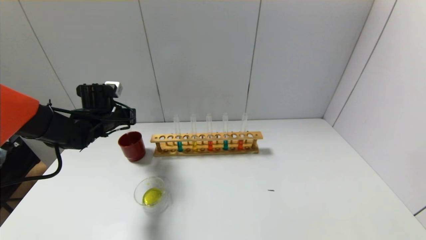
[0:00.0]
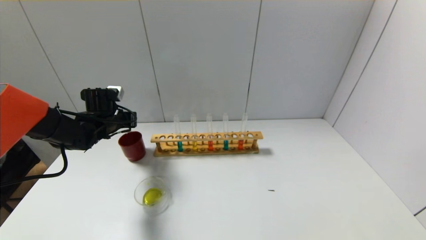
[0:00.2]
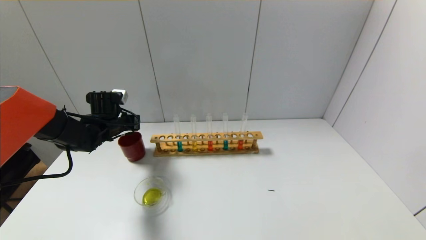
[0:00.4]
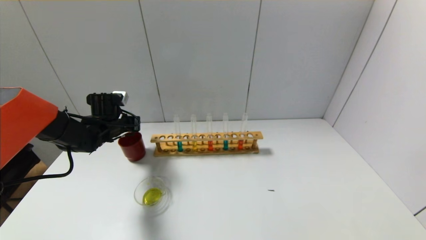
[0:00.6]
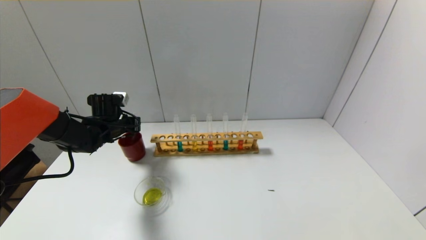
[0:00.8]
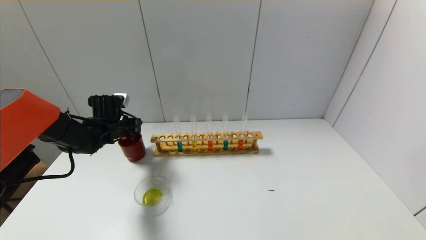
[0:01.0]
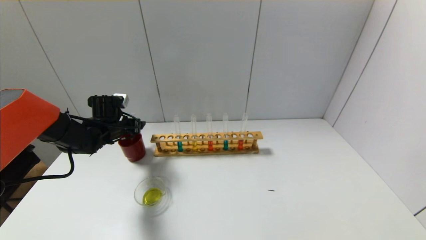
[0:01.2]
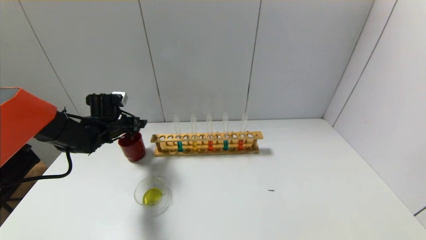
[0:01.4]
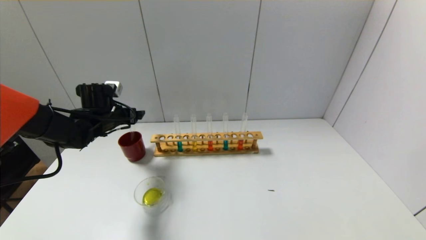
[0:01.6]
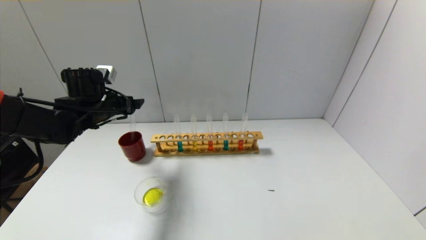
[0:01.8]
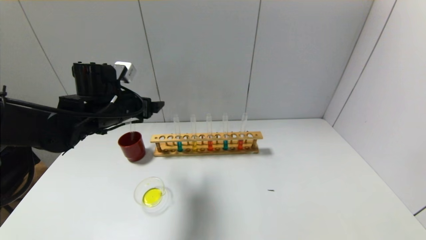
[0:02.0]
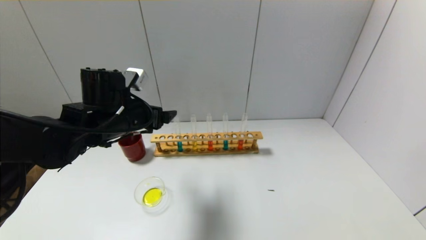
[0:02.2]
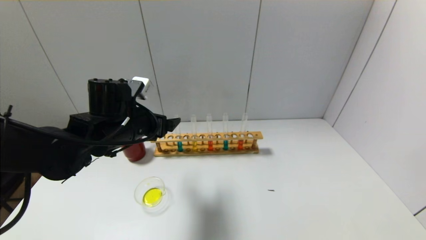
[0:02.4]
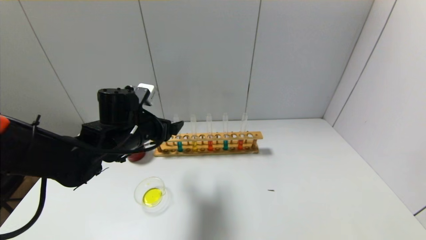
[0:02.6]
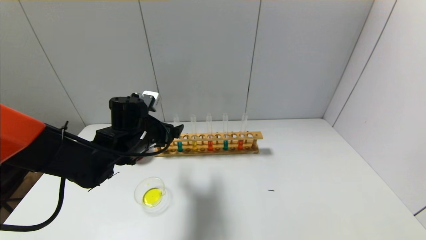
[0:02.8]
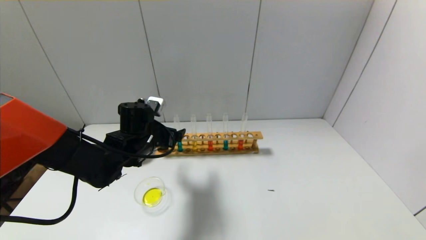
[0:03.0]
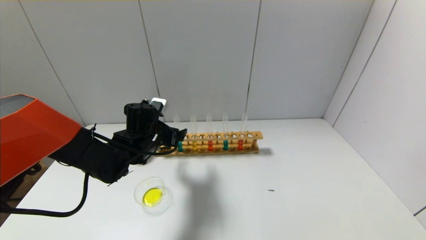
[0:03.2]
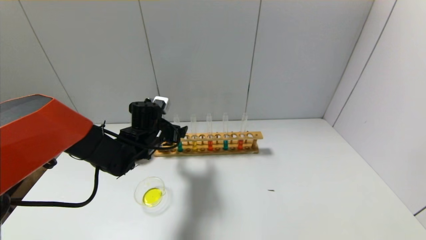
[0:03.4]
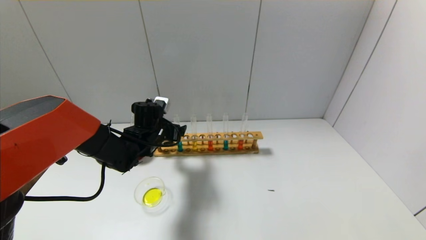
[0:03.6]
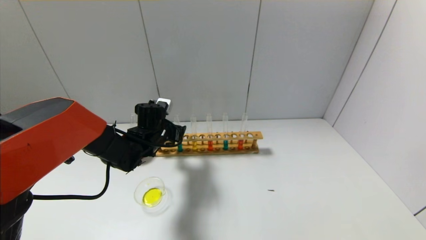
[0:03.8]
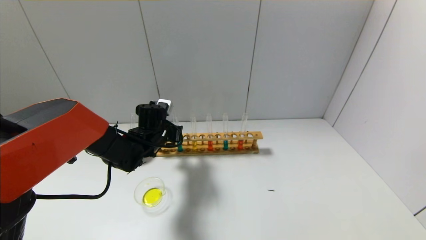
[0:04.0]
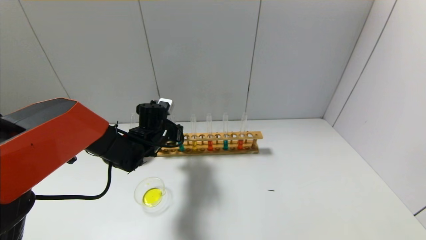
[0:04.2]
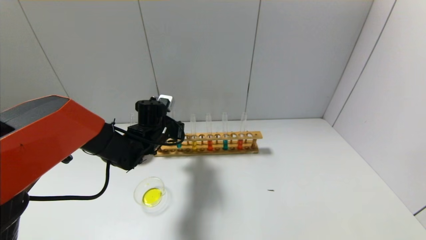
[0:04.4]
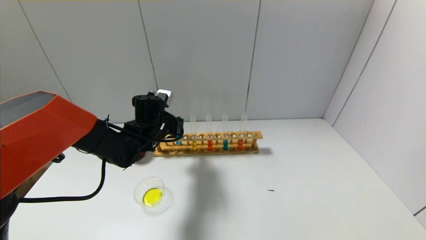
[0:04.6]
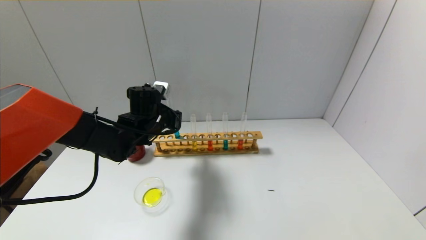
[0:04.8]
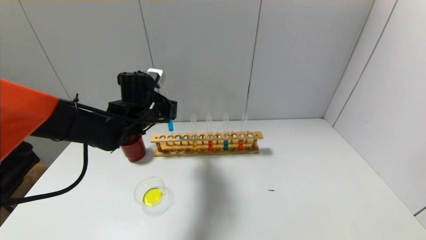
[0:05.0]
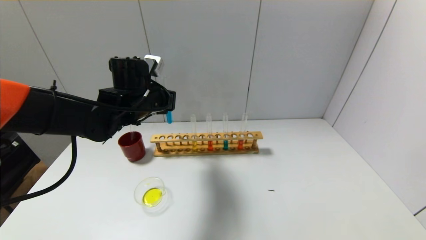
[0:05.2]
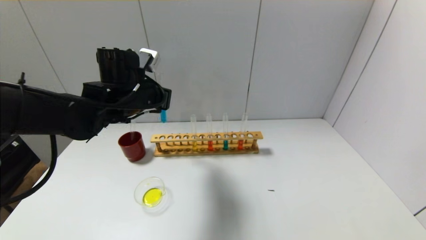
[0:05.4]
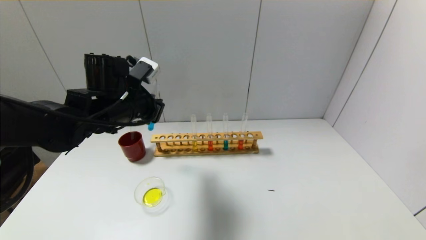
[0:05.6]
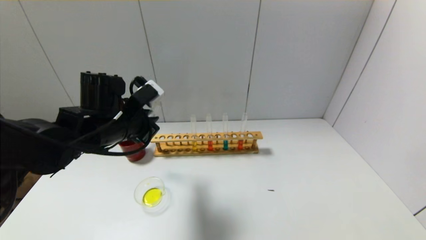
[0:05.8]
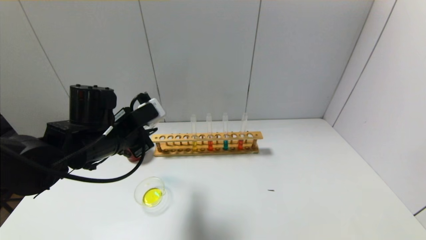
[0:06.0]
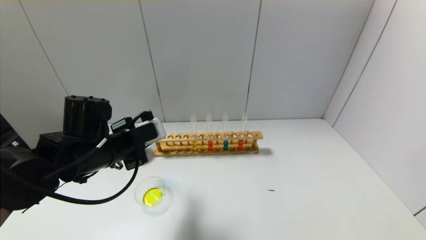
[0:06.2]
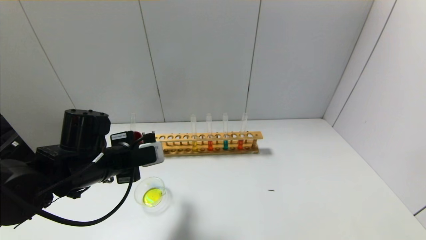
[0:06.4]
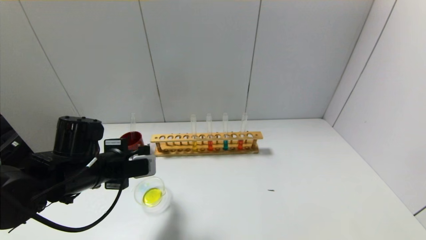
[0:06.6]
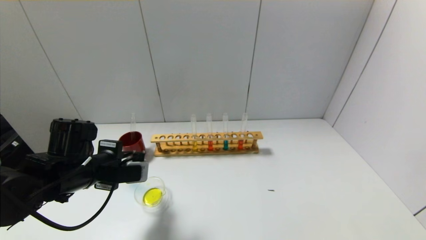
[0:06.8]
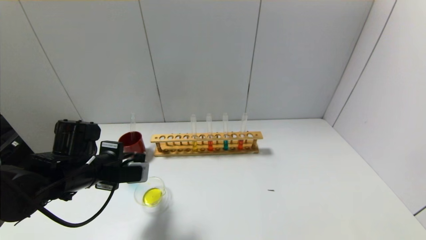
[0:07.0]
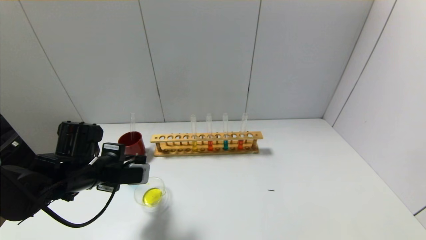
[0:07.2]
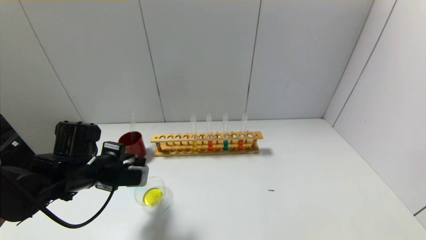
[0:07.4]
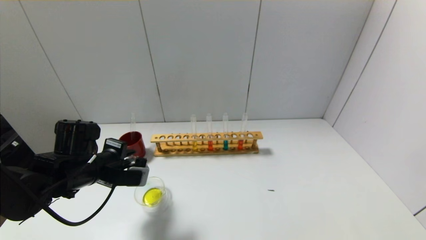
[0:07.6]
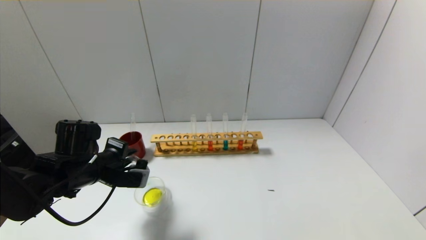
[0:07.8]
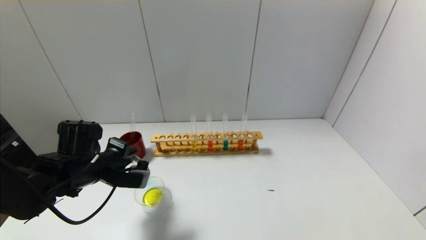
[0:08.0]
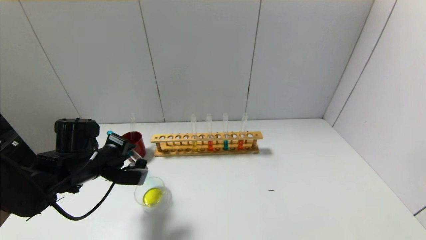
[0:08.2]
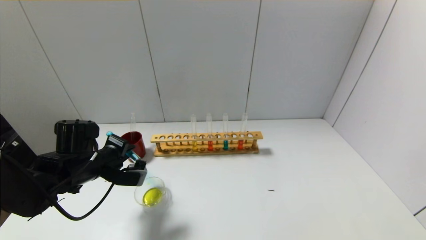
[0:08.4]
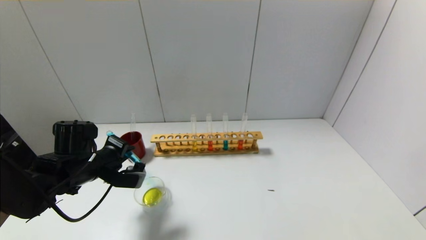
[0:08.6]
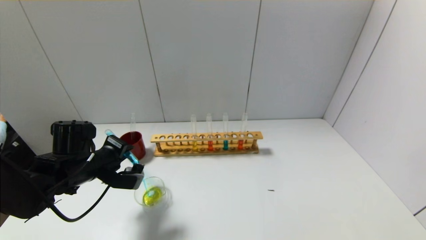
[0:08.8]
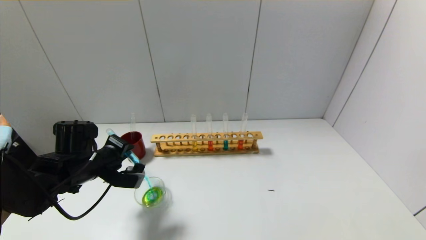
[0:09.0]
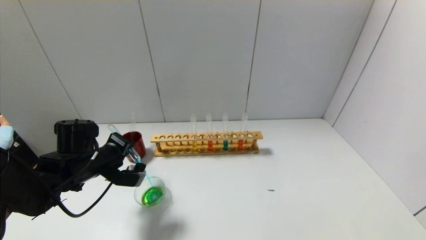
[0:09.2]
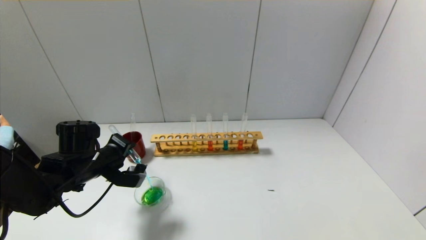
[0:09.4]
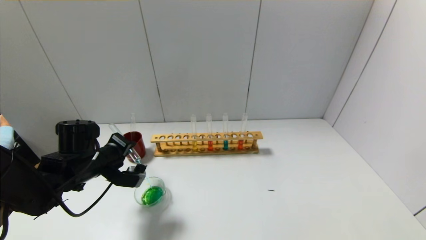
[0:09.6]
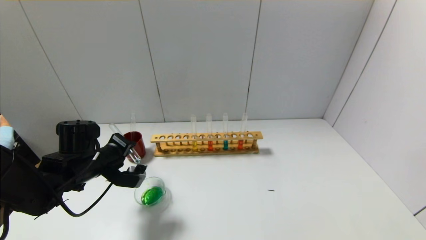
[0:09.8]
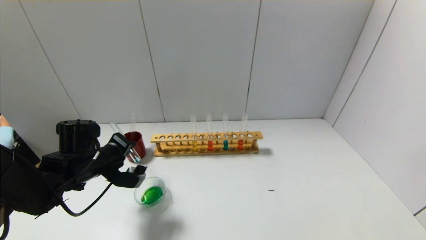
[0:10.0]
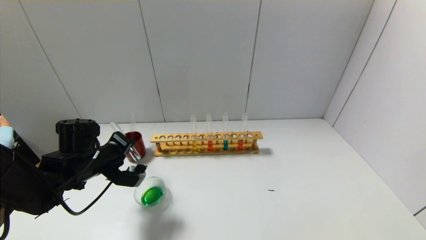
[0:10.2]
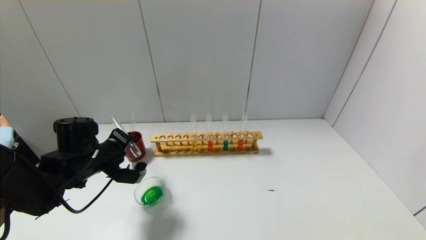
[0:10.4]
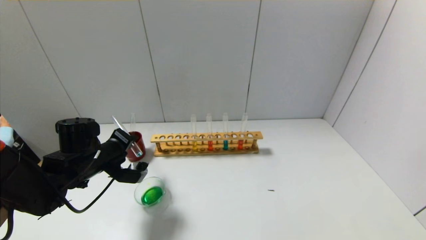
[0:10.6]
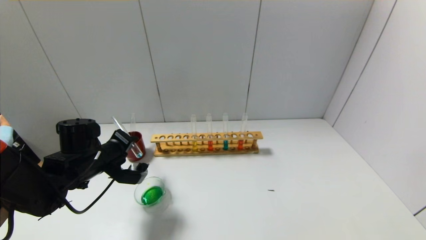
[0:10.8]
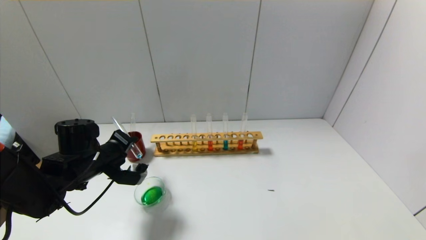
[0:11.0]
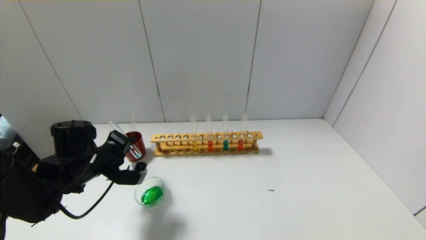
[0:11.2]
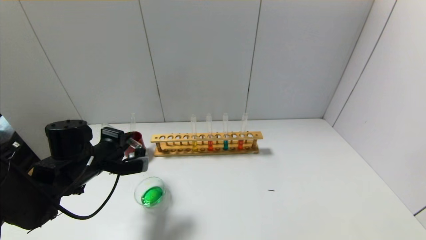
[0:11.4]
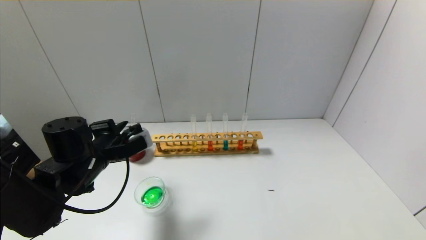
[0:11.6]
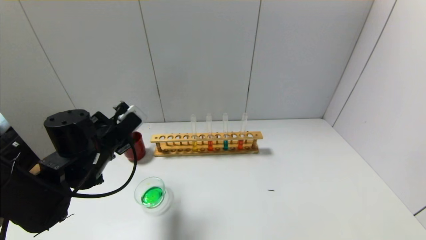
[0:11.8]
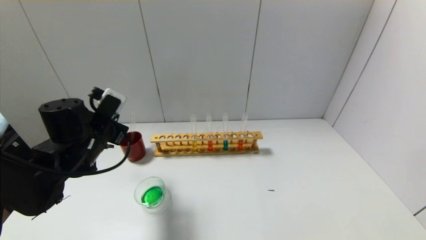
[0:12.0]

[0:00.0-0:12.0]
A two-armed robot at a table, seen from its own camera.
Step, 0:01.0 to 0:04.2: Grasp the blue reagent with the left gripper.
Step, 0:04.4 to 0:11.4: Pour the blue reagent into the graduated cylinder with the left gripper.
0:00.0 to 0:01.6: The left gripper opens.
0:01.6 to 0:03.0: The left gripper shifts some 15 cm to the right and backward.
0:03.0 to 0:04.4: The left gripper moves forward, about 5 cm, and closes.
0:04.4 to 0:06.0: The left gripper heads backward and upward, covering some 15 cm.
0:06.0 to 0:07.6: The left gripper heads downward and to the left, covering approximately 10 cm.
0:07.6 to 0:09.0: There are only small adjustments of the grippers.
0:09.0 to 0:10.4: The grippers make only small movements.
0:10.4 to 0:12.0: The left gripper is displaced upward by roughly 5 cm.

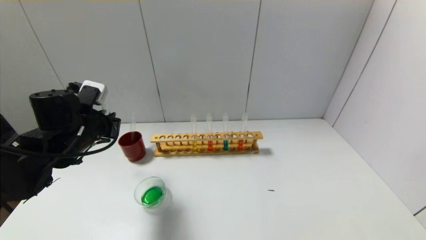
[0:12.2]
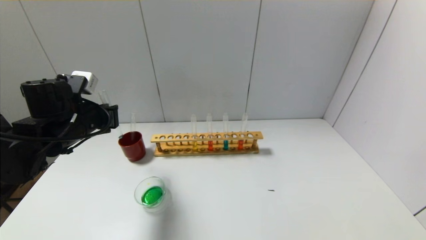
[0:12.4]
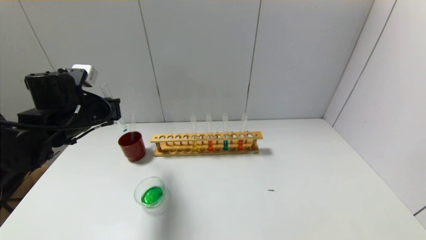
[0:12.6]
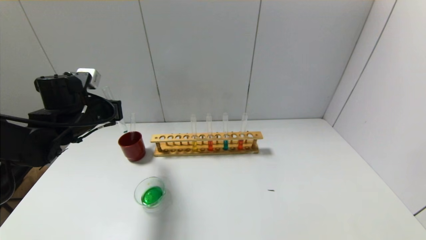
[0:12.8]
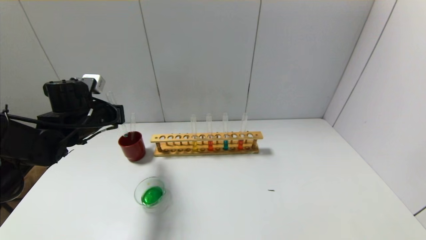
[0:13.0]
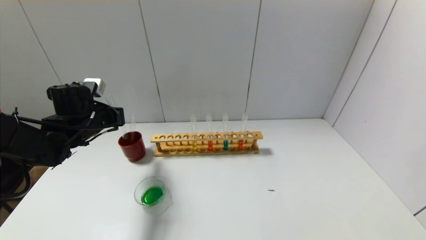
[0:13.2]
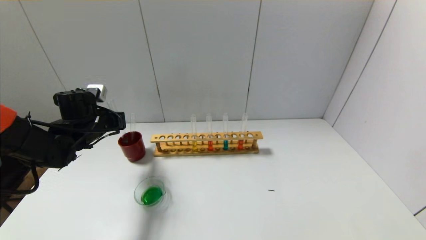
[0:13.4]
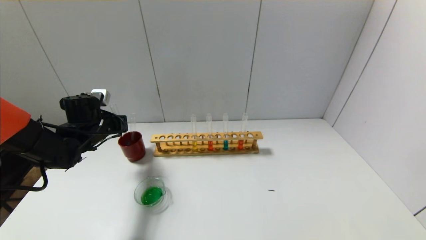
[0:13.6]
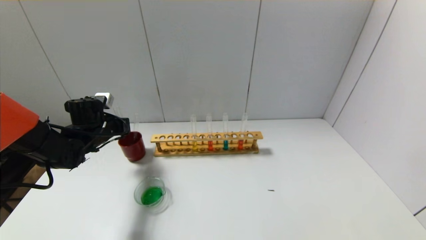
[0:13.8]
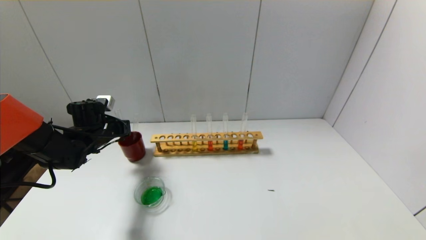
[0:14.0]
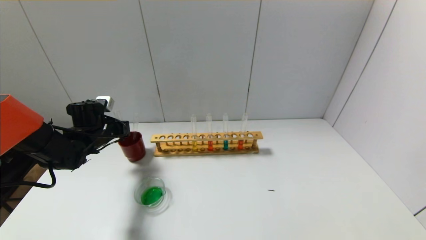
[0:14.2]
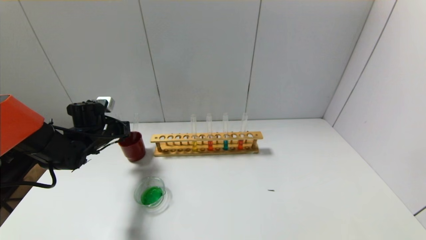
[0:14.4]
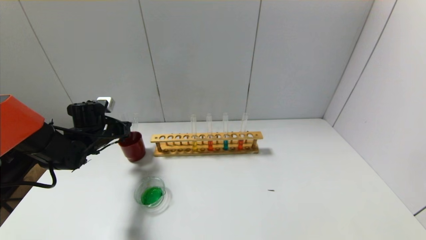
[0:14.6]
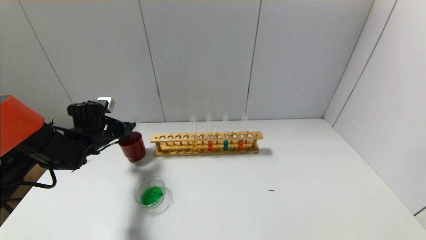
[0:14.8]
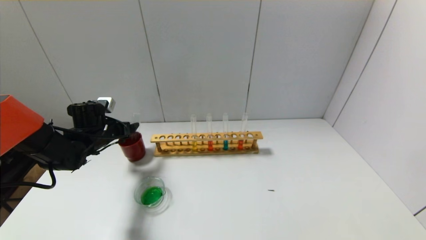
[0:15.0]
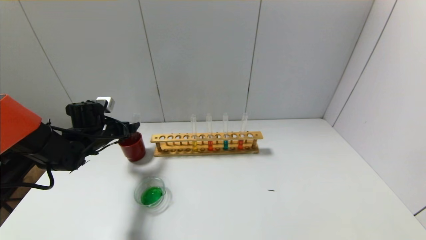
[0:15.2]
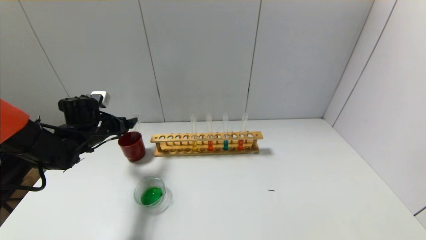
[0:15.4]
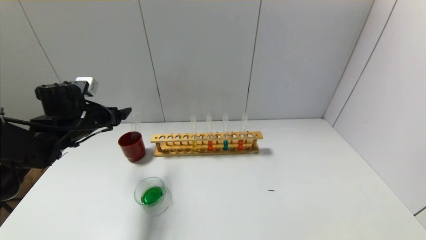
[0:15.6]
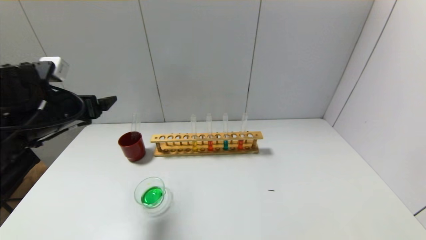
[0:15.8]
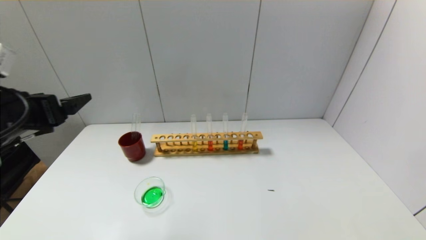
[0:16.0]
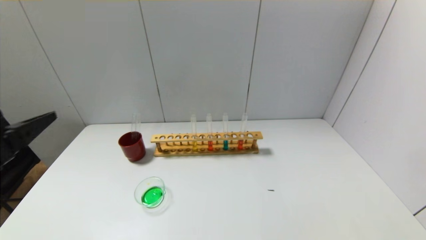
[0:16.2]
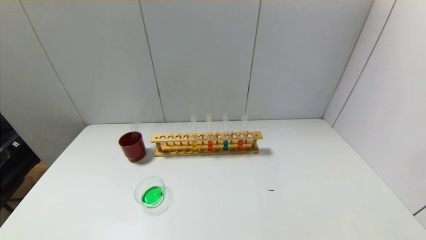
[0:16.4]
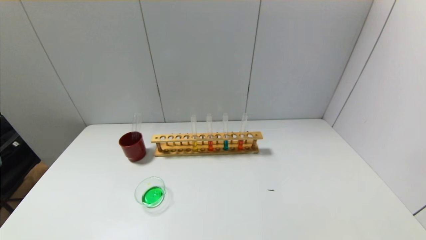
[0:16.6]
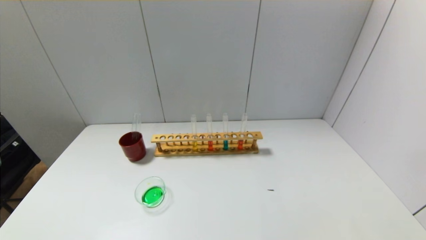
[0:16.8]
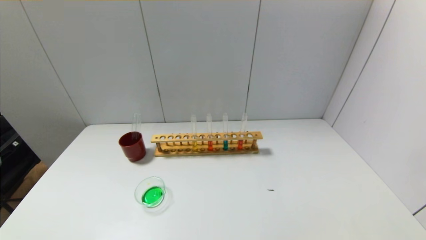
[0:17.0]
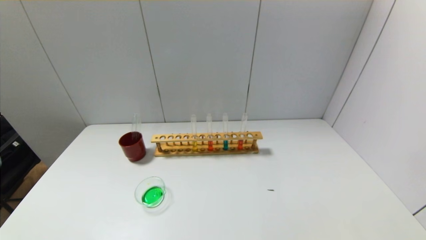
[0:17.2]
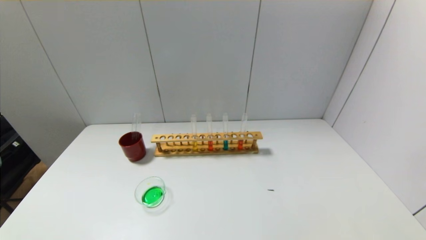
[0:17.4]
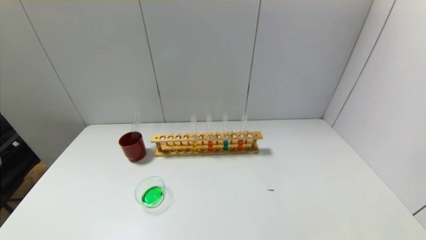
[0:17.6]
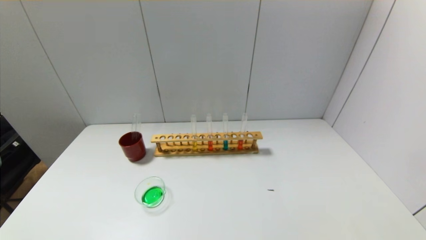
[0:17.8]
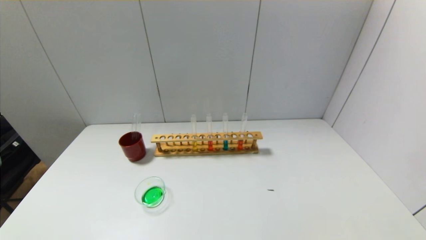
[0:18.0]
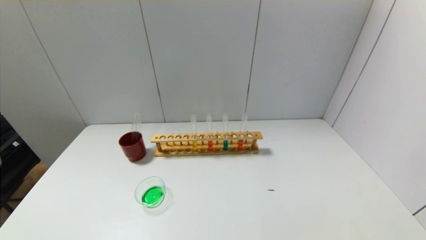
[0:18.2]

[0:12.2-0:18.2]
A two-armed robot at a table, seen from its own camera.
Step, 0:12.2 to 0:14.6: Place the test tube into the brown cup with the left gripper.
0:12.2 to 0:13.8: The left gripper goes roughly 10 cm forward and downward.
0:13.8 to 0:15.2: The left gripper opens its fingers.
0:15.2 to 0:16.6: The left gripper shifts approximately 40 cm backward.
